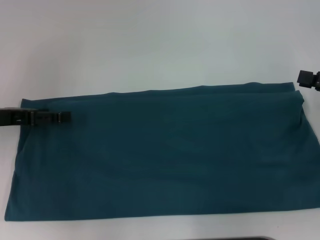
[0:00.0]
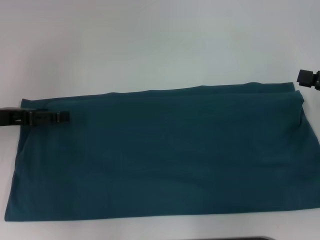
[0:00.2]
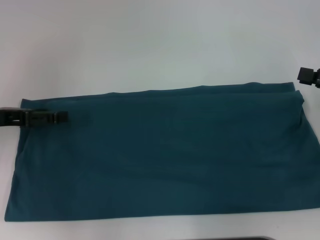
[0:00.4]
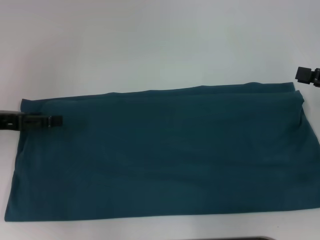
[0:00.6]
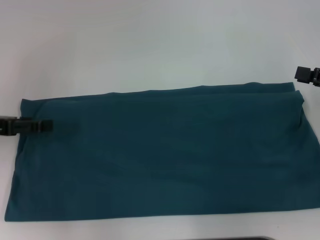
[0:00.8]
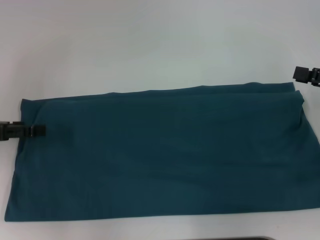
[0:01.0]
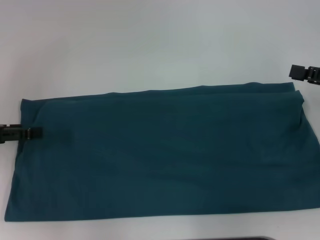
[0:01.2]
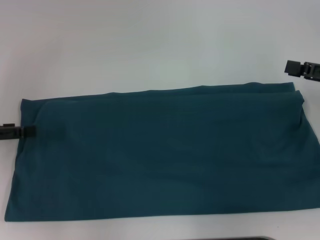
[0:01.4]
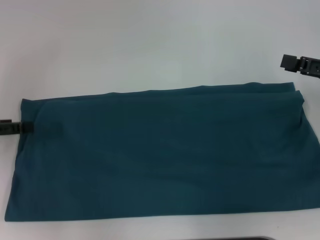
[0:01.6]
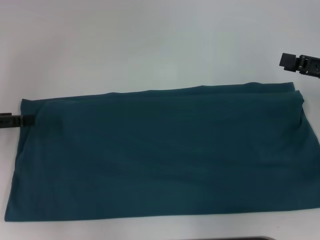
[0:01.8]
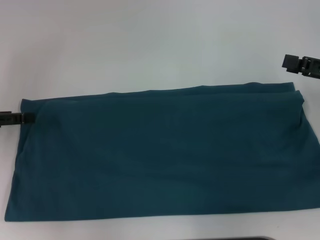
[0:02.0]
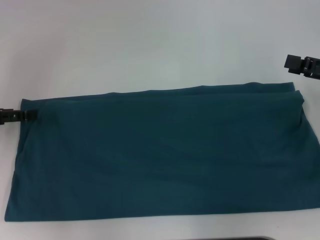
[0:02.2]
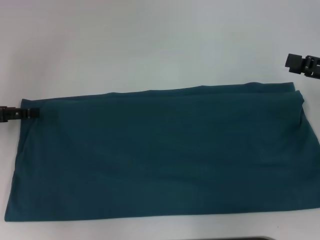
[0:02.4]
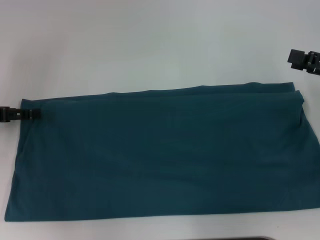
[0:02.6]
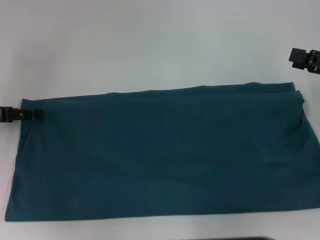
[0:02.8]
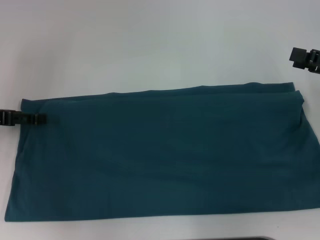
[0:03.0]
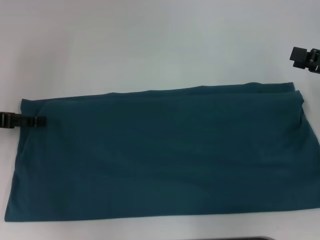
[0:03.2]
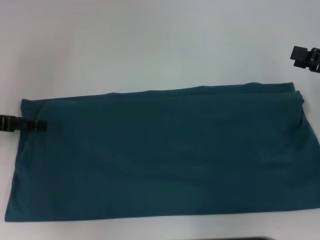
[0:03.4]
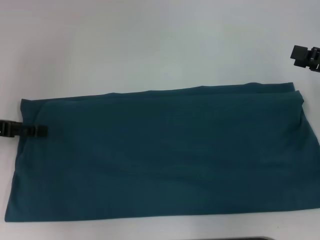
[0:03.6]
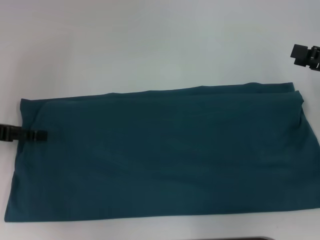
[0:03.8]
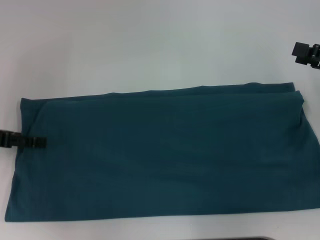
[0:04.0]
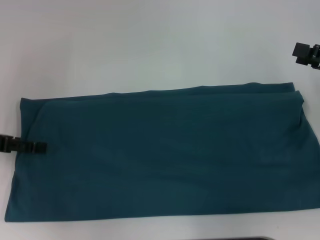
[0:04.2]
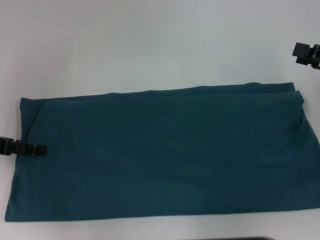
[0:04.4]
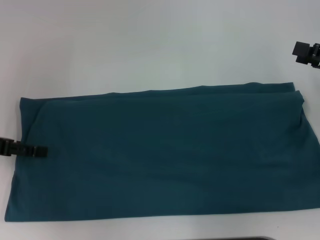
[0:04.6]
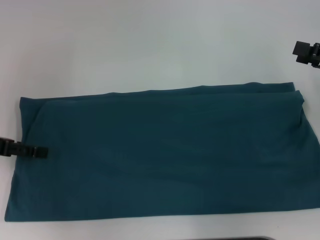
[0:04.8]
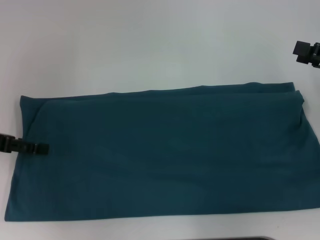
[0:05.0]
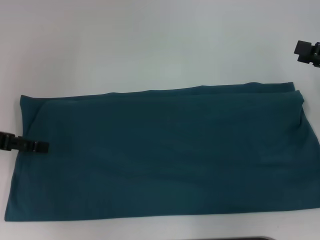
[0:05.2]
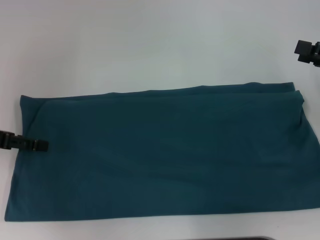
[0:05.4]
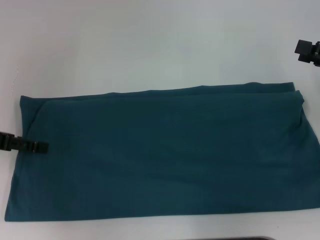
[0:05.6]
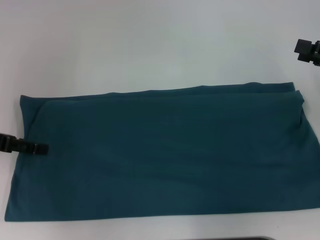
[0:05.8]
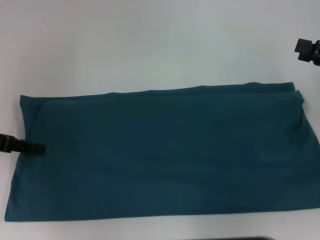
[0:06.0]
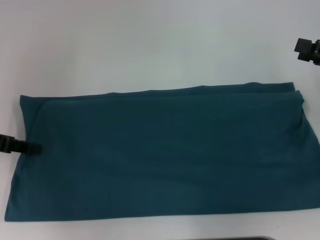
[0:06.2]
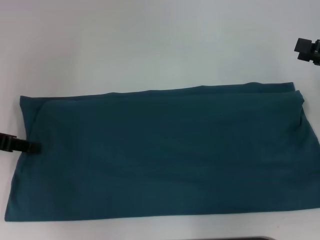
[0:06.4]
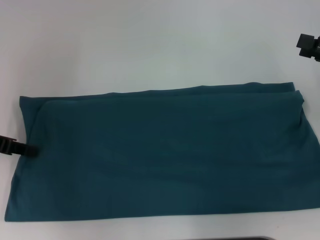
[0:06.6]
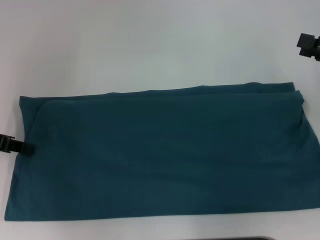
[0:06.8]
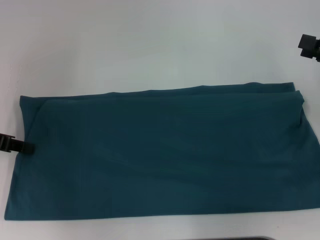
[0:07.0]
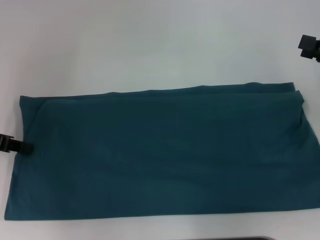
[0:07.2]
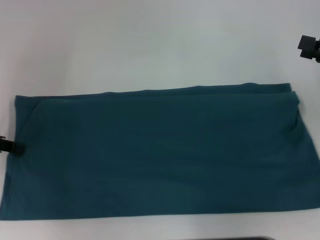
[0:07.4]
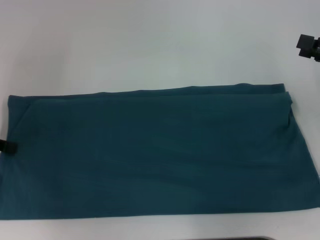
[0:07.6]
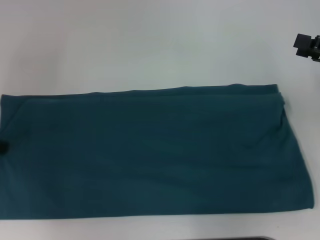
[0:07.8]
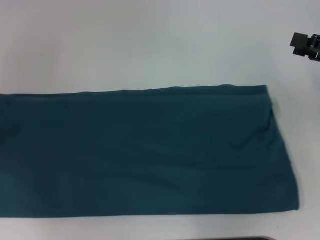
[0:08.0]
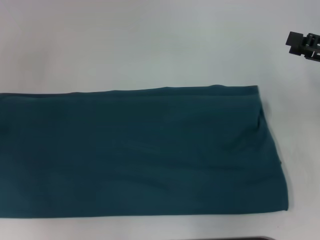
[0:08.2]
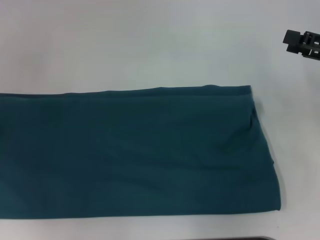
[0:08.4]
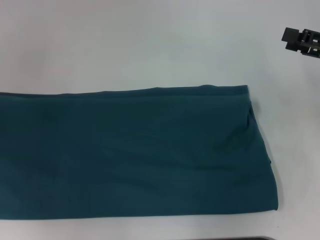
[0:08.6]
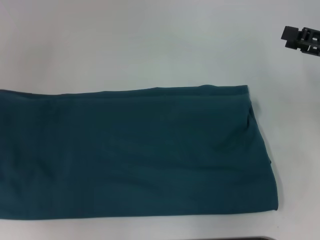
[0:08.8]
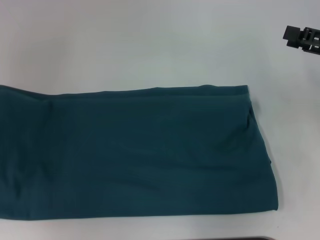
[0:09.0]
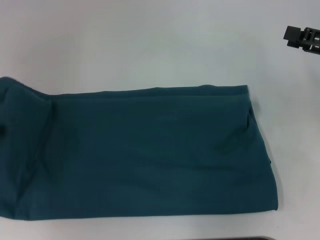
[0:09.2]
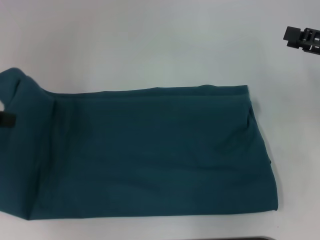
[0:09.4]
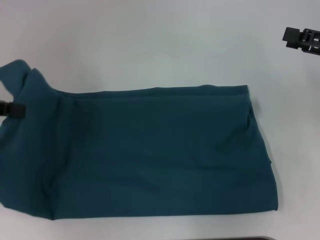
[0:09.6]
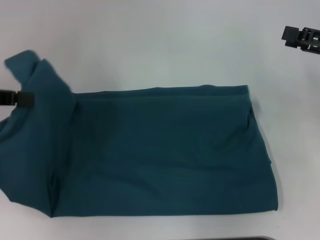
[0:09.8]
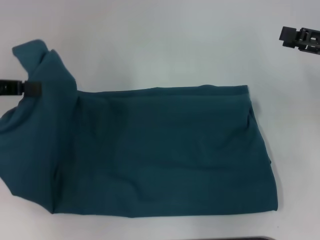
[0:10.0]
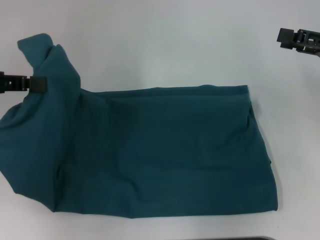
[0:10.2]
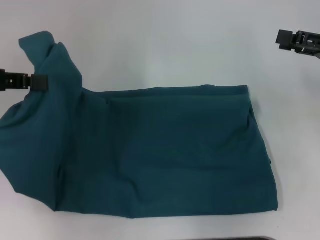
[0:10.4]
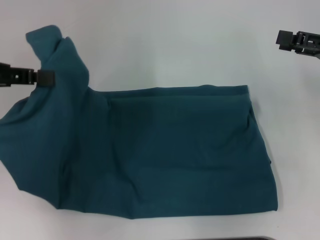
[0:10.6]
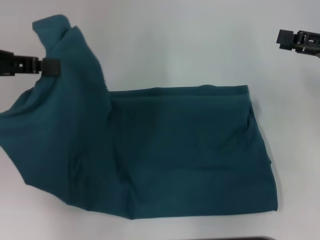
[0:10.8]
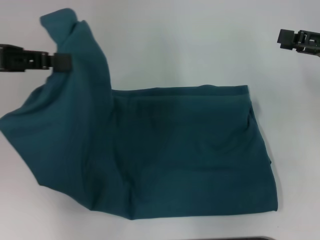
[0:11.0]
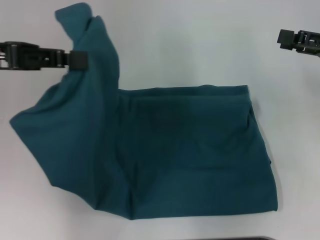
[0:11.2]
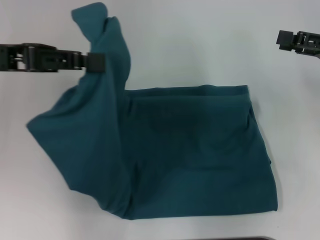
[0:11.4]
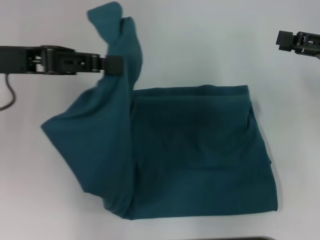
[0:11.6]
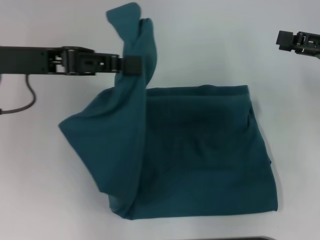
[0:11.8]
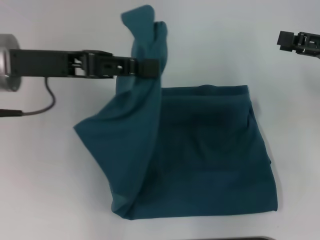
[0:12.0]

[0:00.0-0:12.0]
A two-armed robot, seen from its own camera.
0:00.0 to 0:01.6: The left gripper changes place by about 5 cm.
0:01.6 to 0:06.0: The grippers stay close to where they were, moving slightly.
0:06.0 to 0:07.6: The left gripper closes up.
0:07.6 to 0:09.0: The left gripper moves upward, about 5 cm.
0:09.0 to 0:10.4: The left gripper moves to the right, approximately 5 cm.
0:10.4 to 0:12.0: The left gripper travels to the right by about 10 cm.

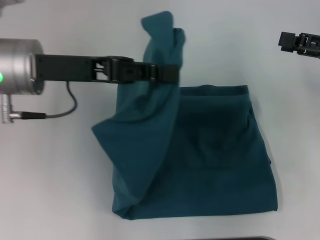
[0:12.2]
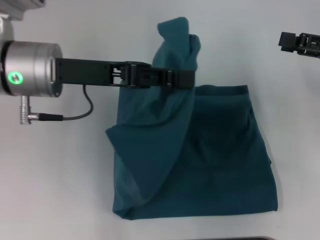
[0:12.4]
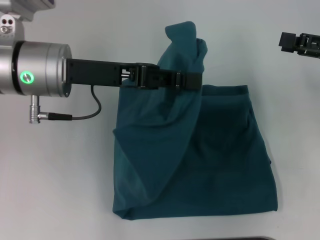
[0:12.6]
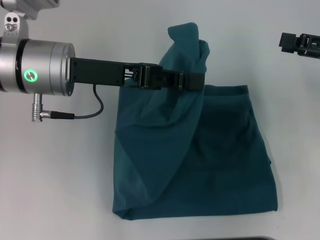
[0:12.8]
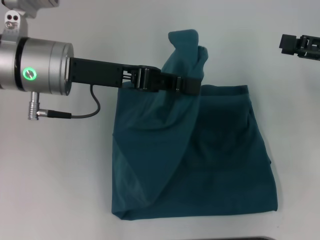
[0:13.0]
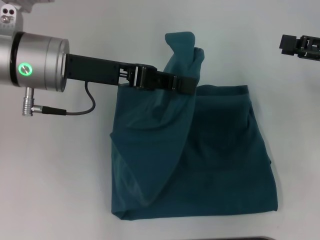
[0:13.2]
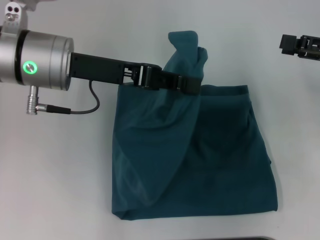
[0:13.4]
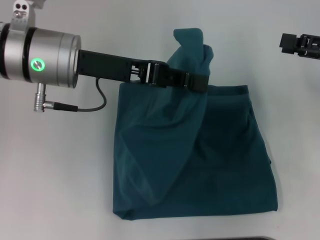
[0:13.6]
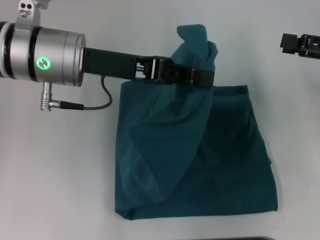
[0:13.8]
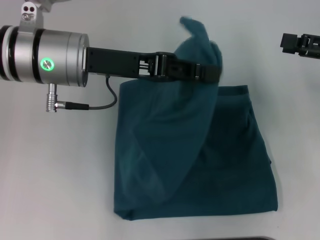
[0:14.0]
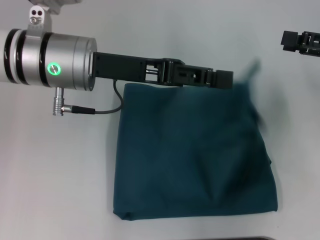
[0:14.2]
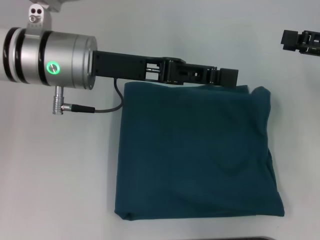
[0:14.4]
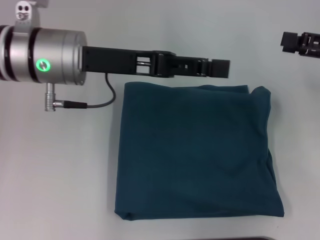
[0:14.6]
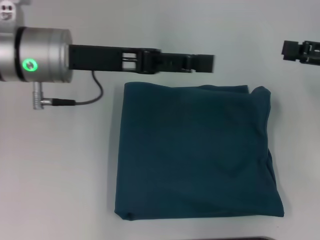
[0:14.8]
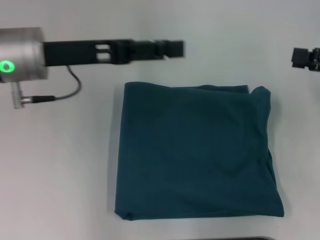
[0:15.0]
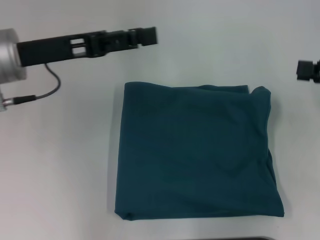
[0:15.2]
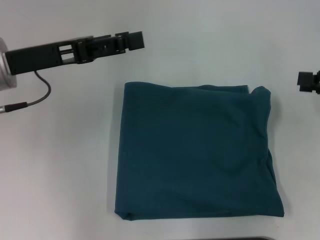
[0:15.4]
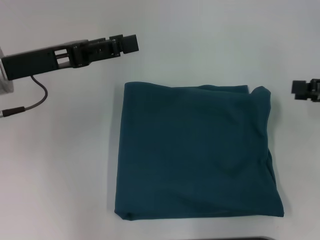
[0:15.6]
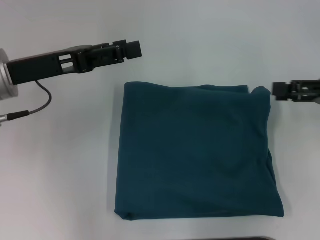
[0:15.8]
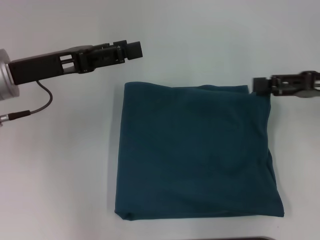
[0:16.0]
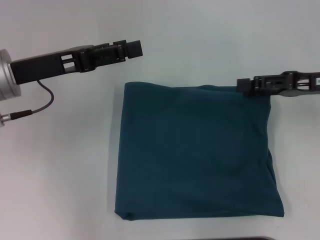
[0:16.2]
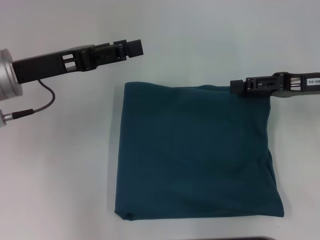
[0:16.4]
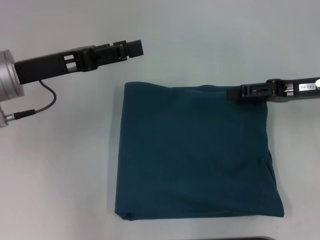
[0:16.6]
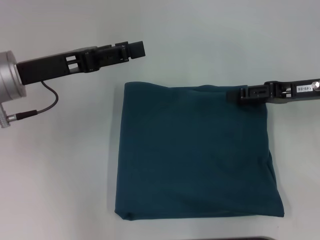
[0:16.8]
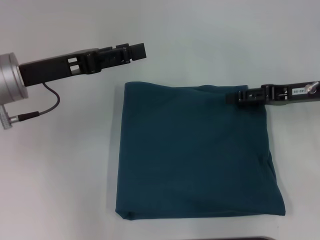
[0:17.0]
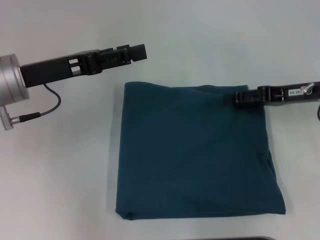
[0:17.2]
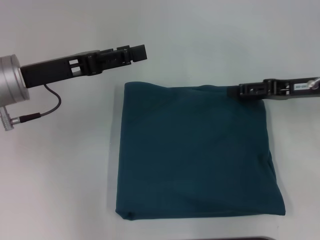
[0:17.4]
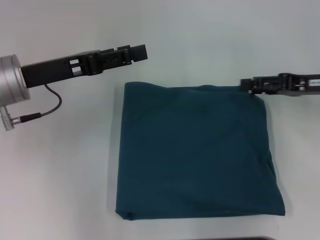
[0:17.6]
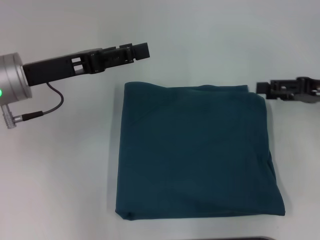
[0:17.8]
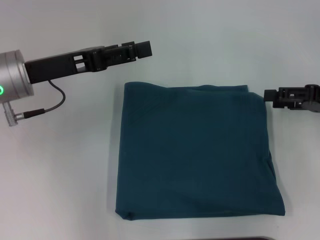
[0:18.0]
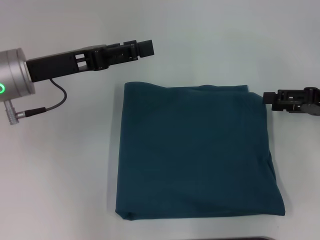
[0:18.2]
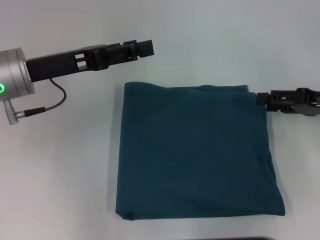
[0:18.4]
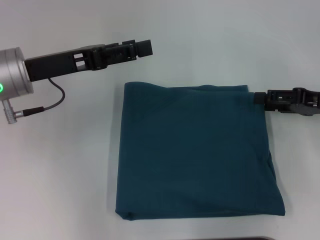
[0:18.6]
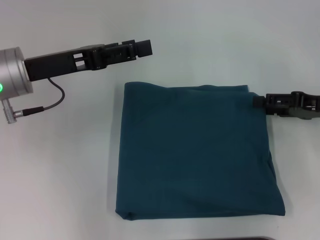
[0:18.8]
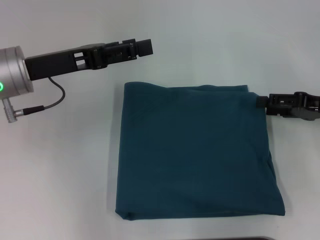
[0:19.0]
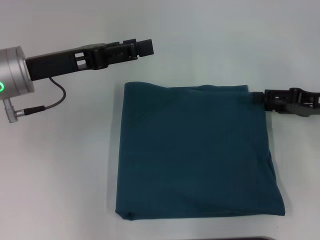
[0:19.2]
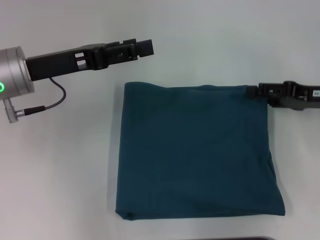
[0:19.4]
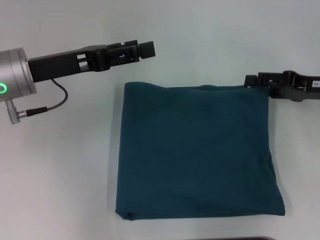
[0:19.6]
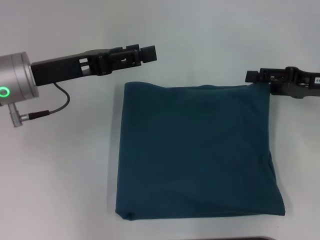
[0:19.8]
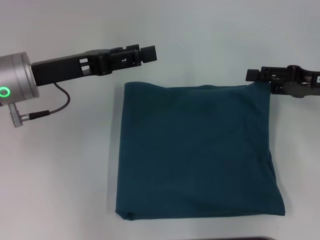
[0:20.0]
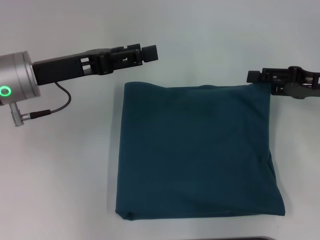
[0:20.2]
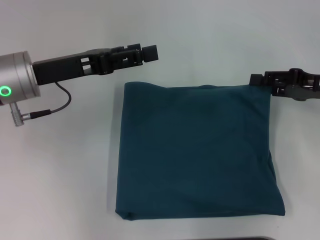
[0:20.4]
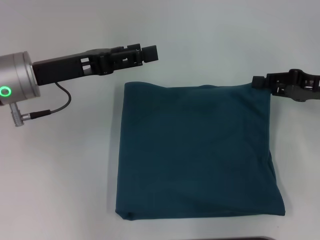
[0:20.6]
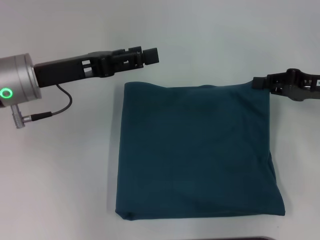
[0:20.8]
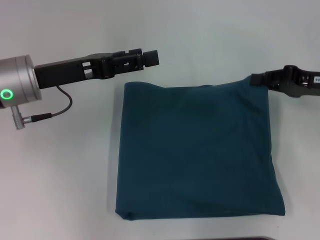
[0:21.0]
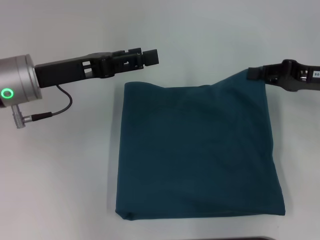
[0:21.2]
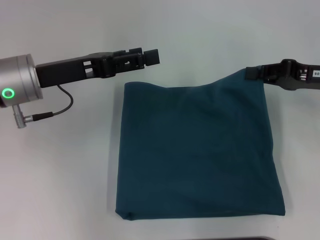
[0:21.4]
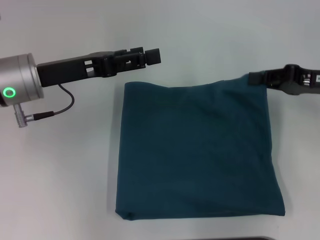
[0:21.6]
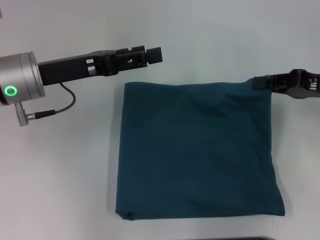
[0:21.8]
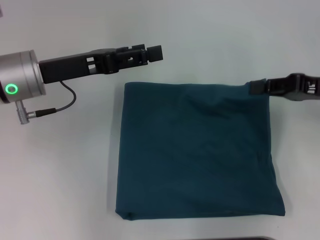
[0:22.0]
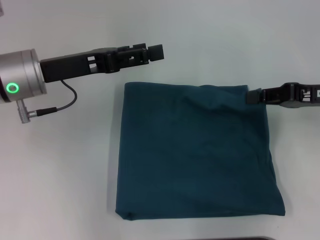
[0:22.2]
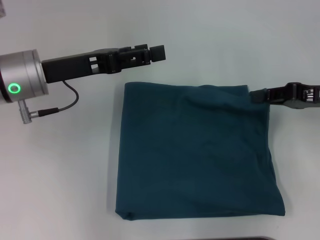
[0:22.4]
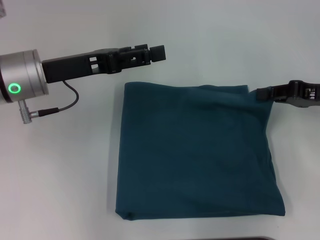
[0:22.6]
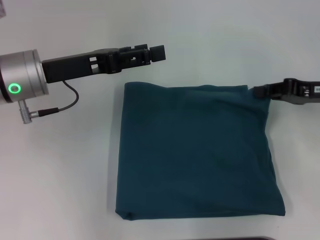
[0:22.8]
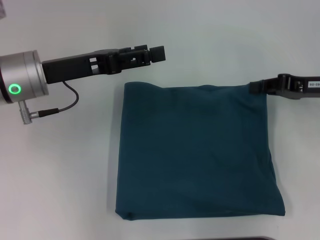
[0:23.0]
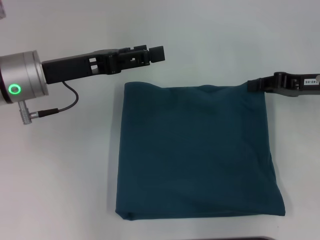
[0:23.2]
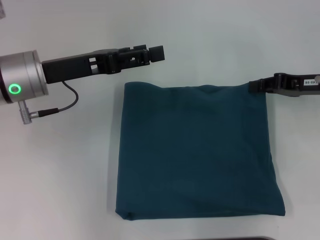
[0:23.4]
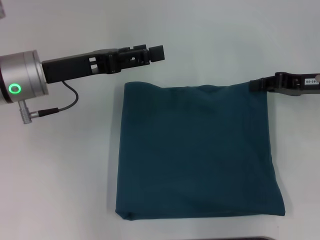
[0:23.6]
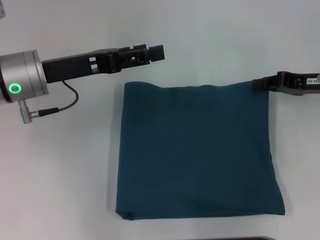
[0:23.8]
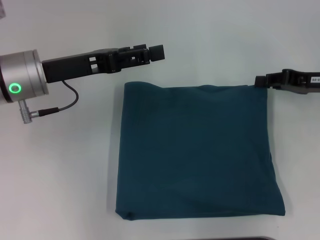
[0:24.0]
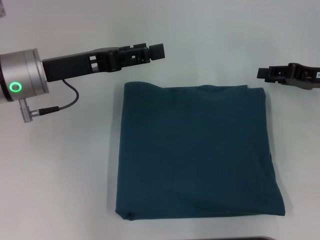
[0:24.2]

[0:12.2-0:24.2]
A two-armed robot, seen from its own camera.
Step, 0:12.2 to 0:14.4: Fold the clothes to the left.
0:12.2 to 0:13.8: The grippers stay close to where they were, moving slightly.
0:13.8 to 0:15.2: The left gripper shifts some 5 cm to the left, and opens its fingers.
0:15.2 to 0:16.6: The right gripper is displaced to the left by some 10 cm.
0:16.6 to 0:18.2: The right gripper shifts roughly 5 cm to the right.
0:18.2 to 0:19.8: The grippers move only a little.
0:19.8 to 0:21.2: The right gripper closes up.
0:21.2 to 0:24.2: The grippers make only small movements.
